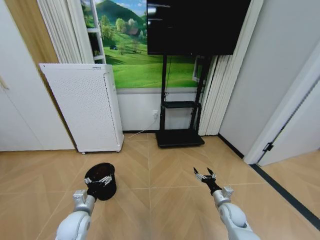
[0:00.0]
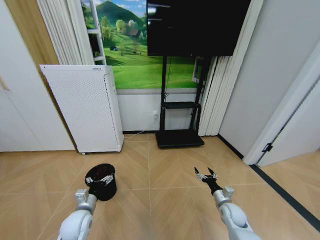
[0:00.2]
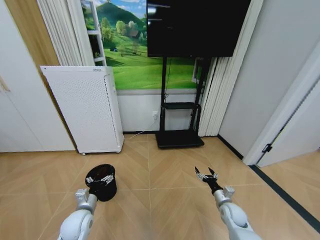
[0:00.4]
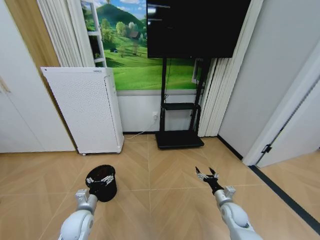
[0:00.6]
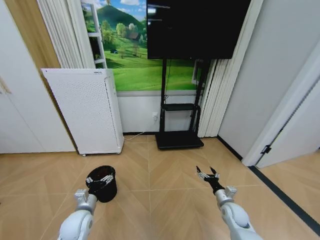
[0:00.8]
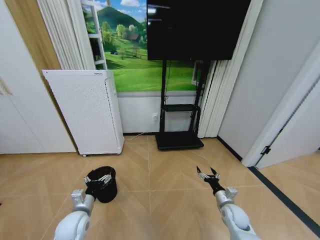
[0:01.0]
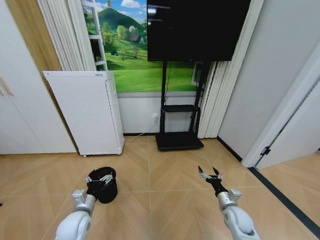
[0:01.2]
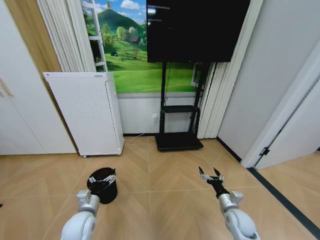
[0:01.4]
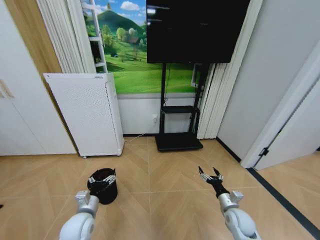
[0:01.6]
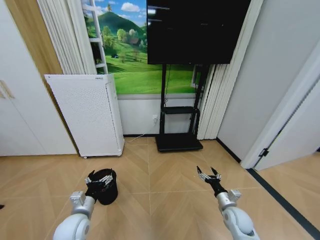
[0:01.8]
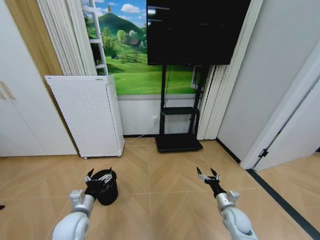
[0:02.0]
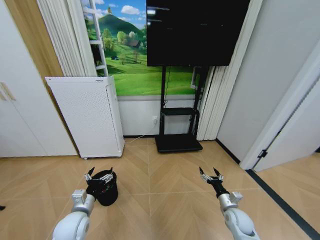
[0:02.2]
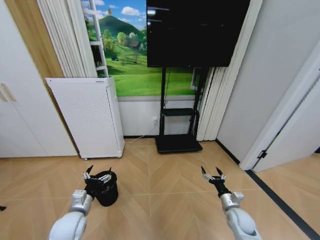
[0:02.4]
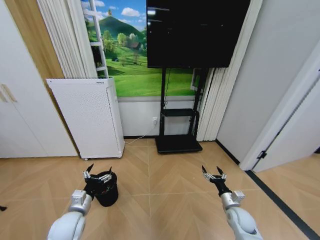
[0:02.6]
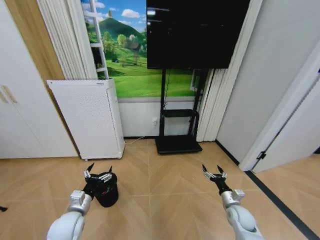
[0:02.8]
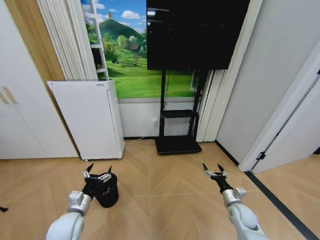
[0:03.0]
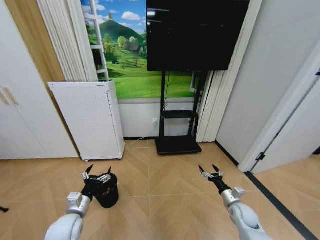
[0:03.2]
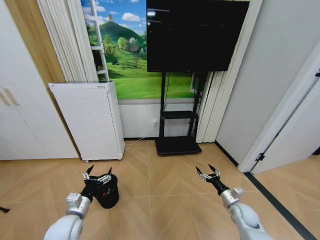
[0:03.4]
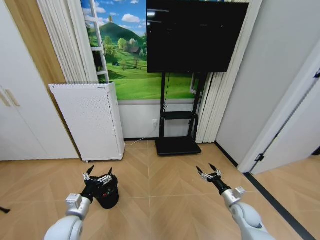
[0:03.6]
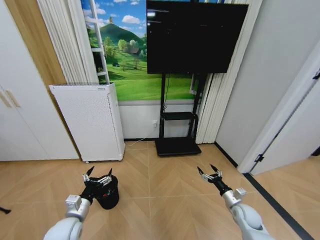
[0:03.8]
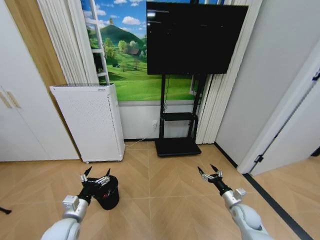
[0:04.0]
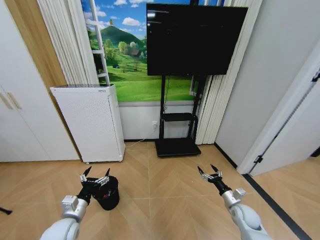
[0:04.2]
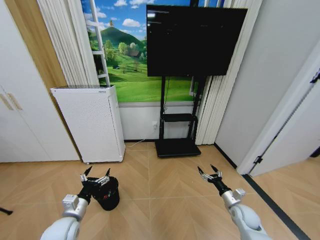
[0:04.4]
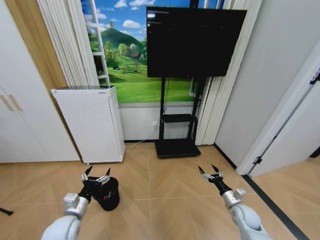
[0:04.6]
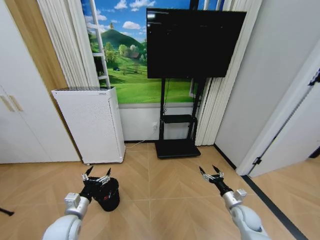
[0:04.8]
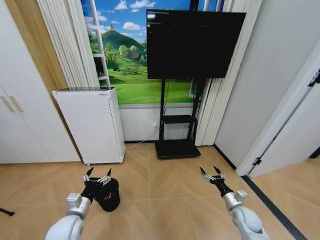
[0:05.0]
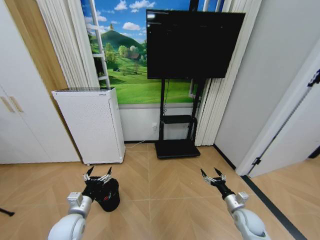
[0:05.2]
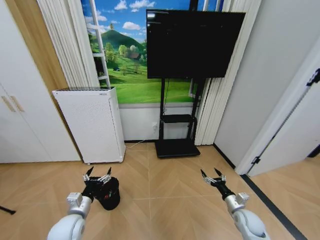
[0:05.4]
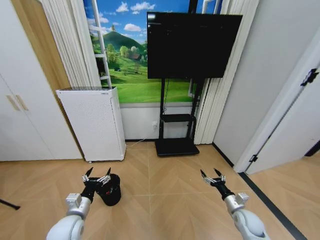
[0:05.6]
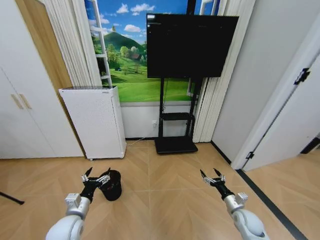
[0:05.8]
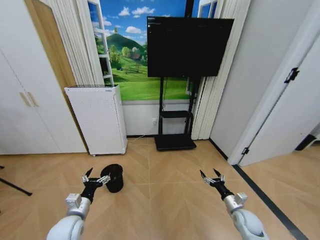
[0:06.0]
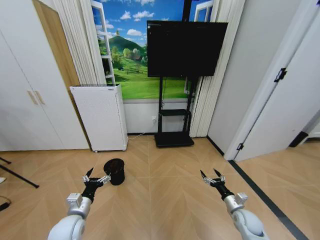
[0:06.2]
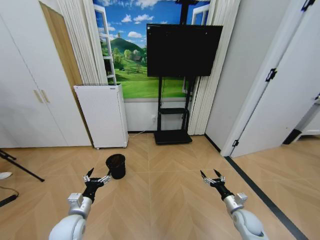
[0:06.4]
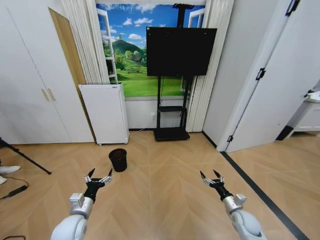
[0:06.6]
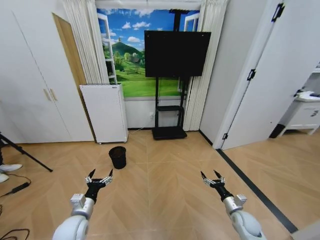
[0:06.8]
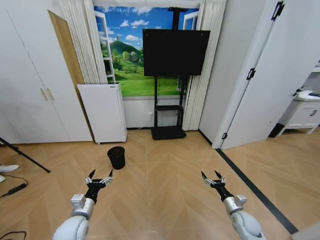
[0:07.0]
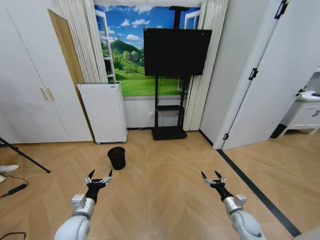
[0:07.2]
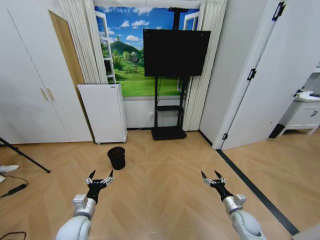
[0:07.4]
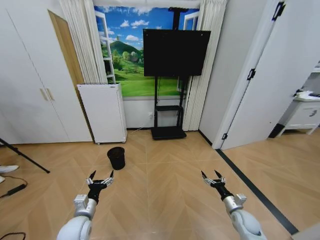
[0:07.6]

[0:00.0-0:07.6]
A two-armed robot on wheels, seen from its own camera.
Task of the whole recording: Pick up the trash bin and place the garbage on the floor into it.
0:00.0 to 0:01.6: The right gripper changes place by some 5 cm.
0:01.6 to 0:03.0: The grippers move only a little.
0:03.0 to 0:04.6: The grippers make only small movements.

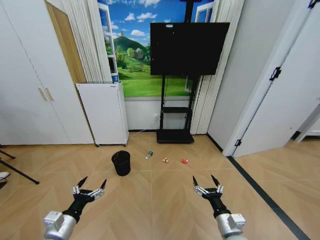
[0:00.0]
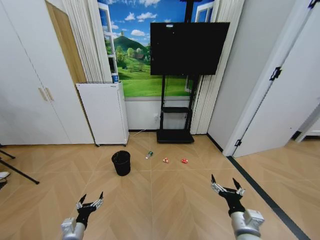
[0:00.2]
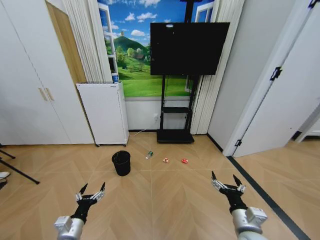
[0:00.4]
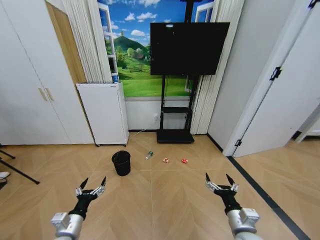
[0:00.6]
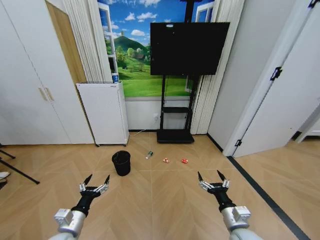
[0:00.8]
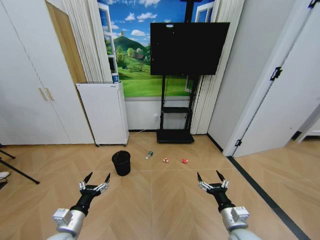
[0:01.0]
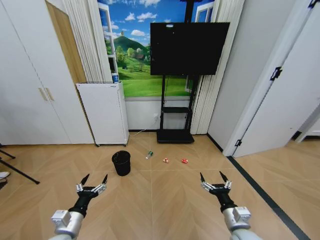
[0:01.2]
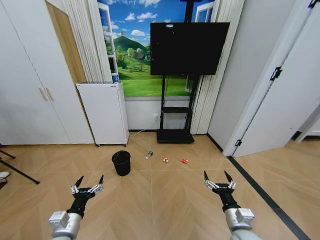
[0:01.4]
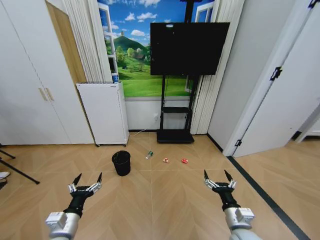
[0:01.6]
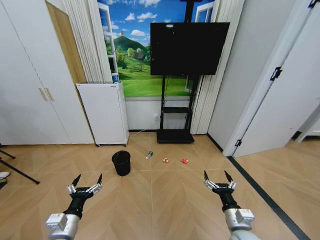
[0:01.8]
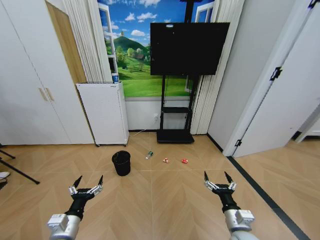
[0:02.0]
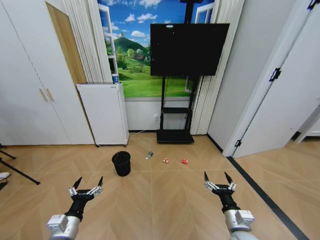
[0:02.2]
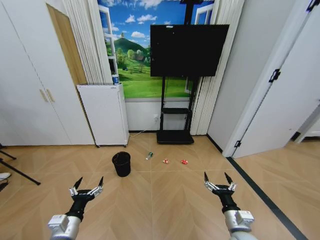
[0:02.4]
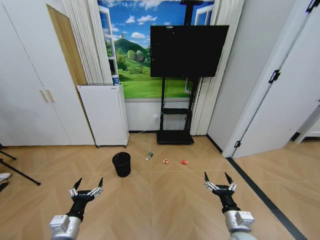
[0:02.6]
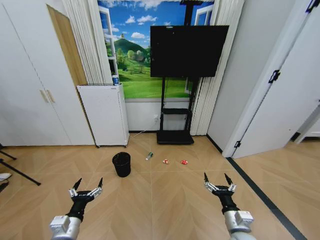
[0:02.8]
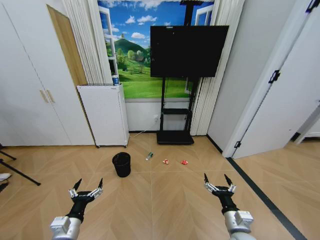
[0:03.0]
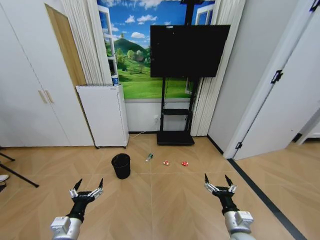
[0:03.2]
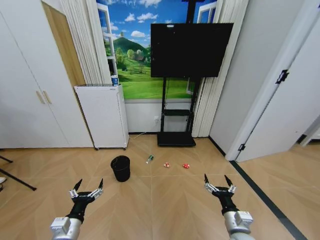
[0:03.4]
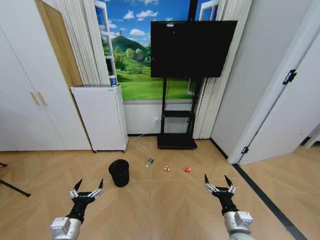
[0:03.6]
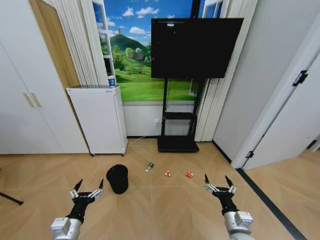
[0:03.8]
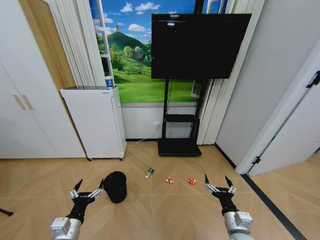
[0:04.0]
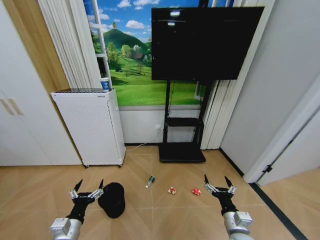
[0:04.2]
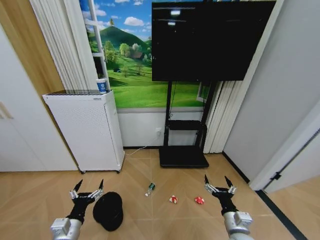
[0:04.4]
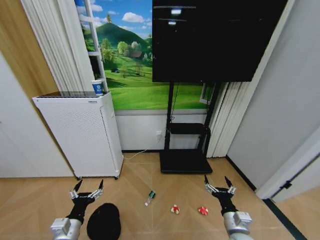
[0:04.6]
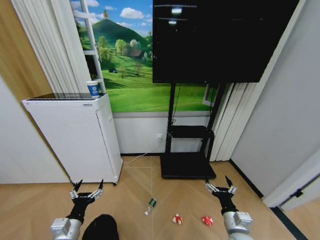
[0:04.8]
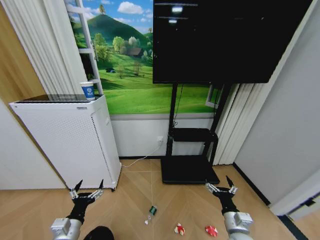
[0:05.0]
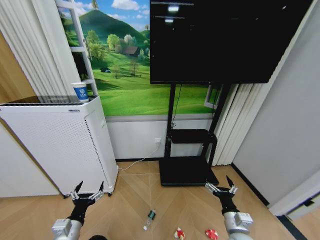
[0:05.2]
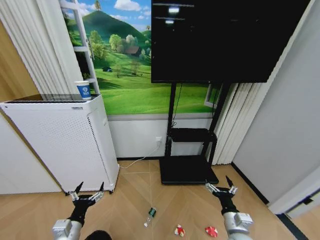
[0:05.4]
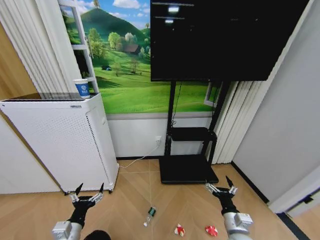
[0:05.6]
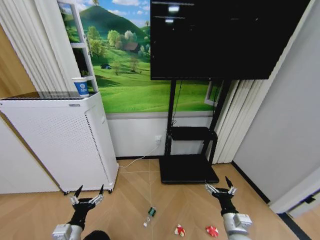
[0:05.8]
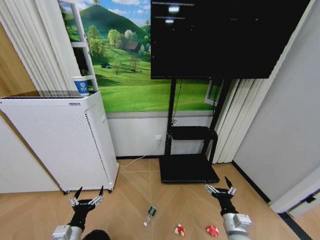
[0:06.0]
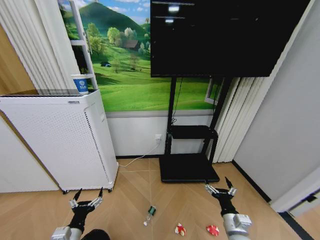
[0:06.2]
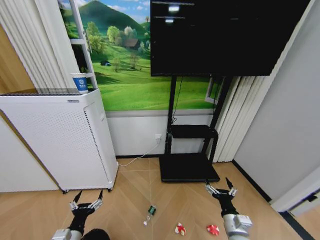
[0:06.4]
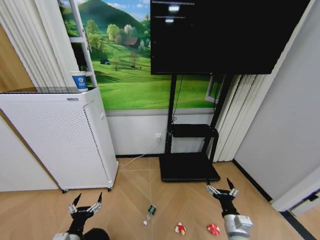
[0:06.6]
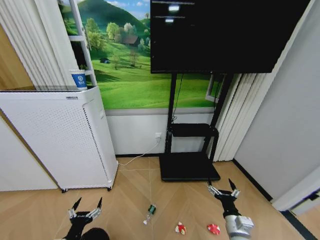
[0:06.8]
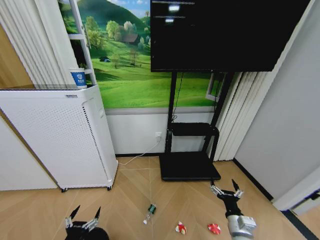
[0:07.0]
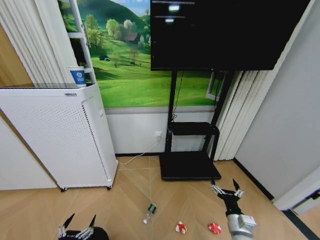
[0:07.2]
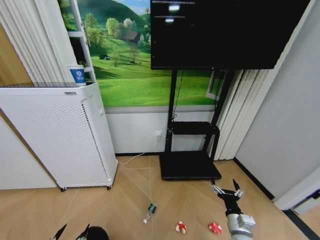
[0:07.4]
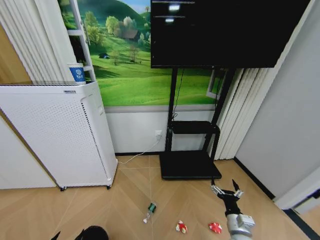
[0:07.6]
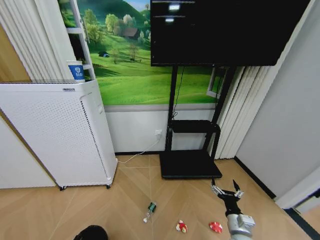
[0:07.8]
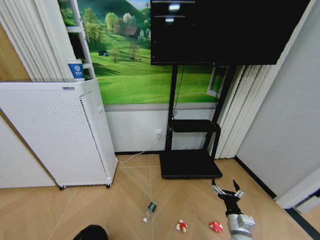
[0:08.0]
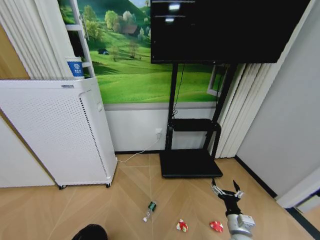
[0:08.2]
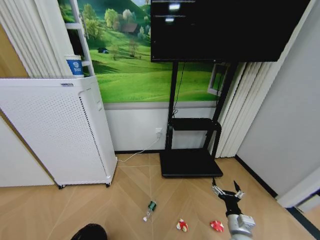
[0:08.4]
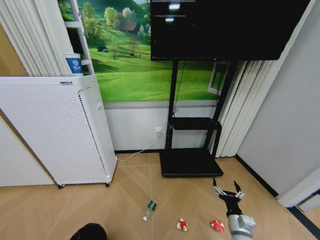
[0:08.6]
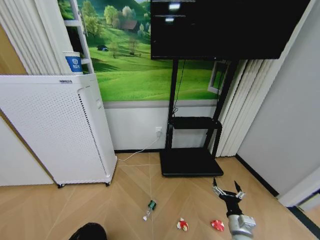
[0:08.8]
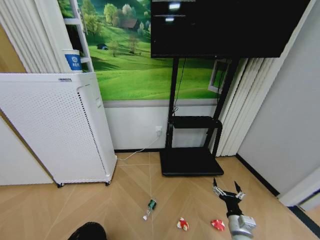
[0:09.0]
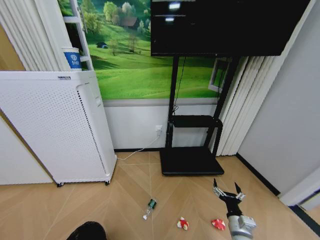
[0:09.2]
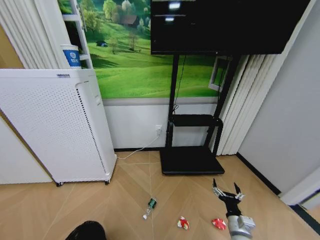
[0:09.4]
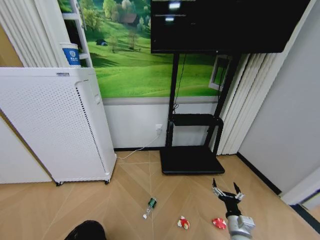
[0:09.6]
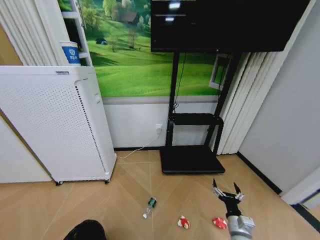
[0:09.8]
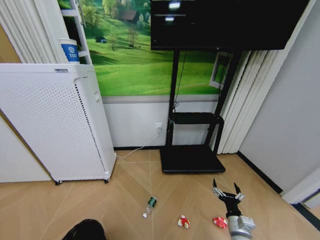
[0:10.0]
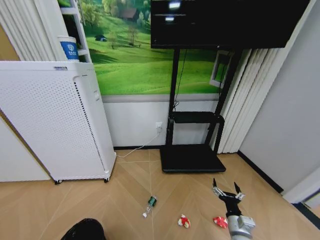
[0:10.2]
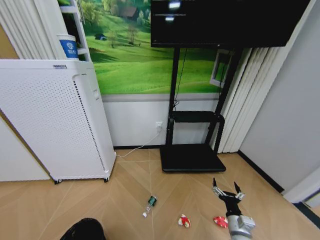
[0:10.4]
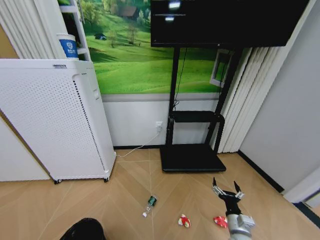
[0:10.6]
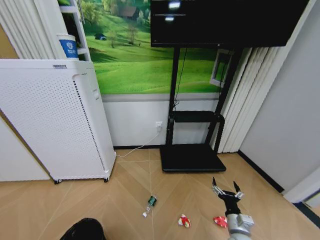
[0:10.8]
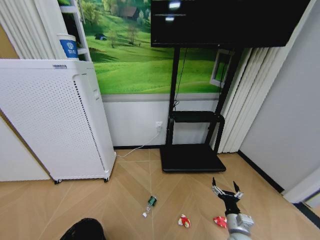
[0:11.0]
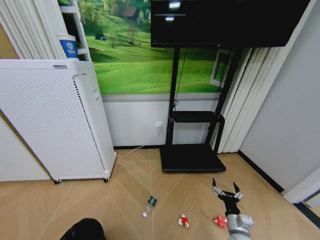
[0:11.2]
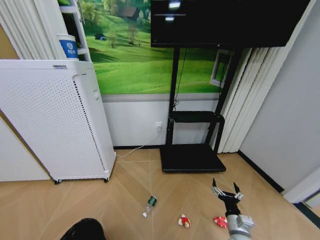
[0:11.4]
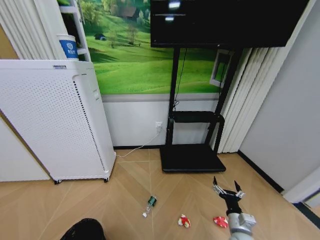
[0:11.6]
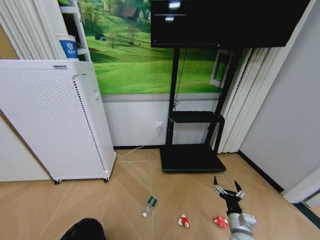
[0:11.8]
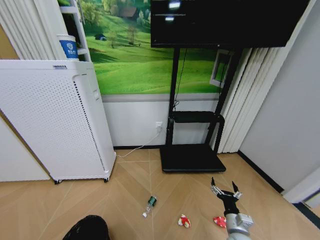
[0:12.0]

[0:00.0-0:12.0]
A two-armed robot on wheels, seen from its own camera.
Task of the whole recording: Pick up the trash bin and place the garbage on the floor into it.
0:01.6 to 0:03.0: There are only small adjustments of the grippers.
0:06.0 to 0:07.6: The left gripper is displaced backward and to the left by about 15 cm.
0:09.0 to 0:10.4: There are only small adjustments of the grippers.

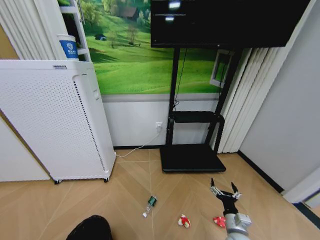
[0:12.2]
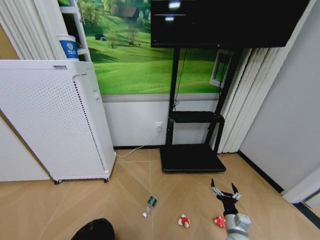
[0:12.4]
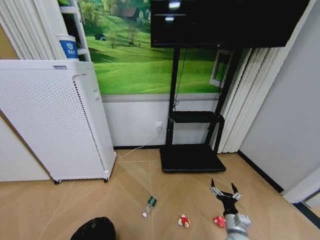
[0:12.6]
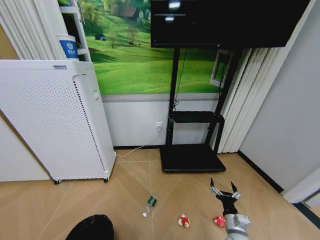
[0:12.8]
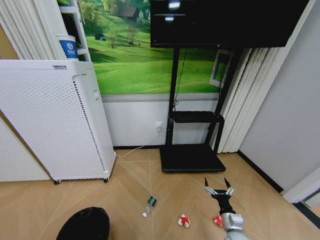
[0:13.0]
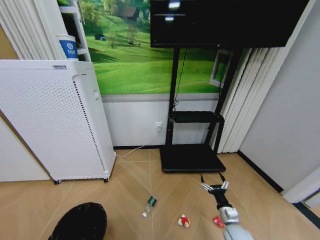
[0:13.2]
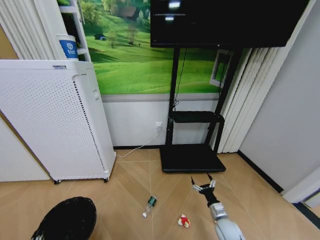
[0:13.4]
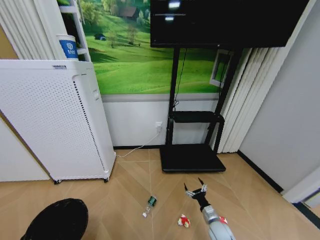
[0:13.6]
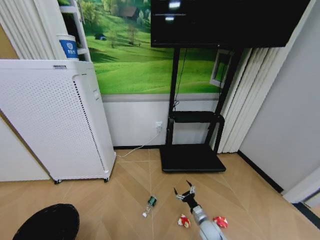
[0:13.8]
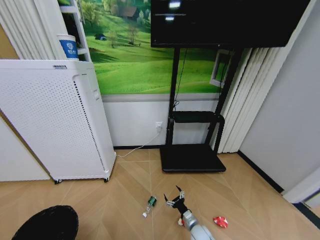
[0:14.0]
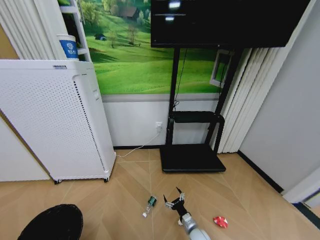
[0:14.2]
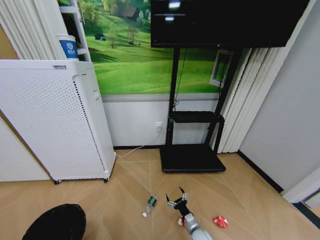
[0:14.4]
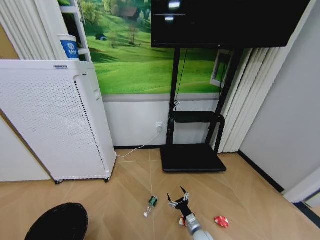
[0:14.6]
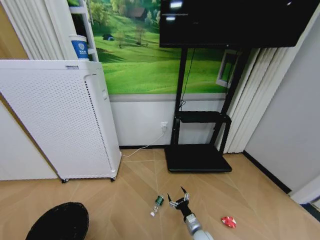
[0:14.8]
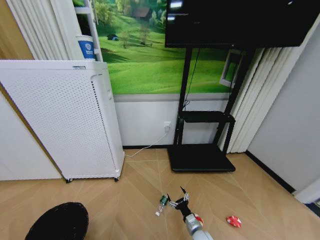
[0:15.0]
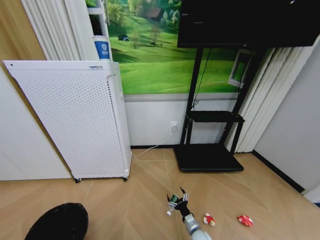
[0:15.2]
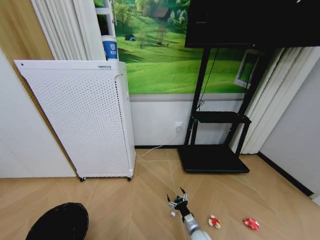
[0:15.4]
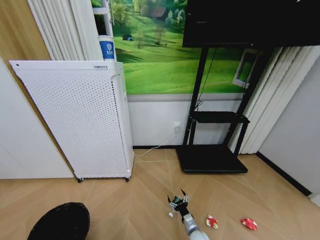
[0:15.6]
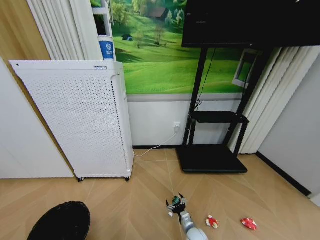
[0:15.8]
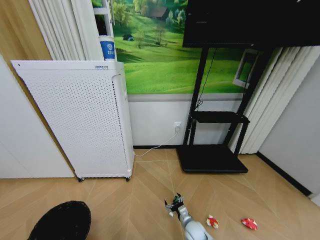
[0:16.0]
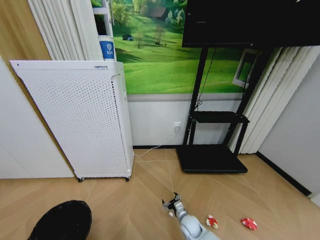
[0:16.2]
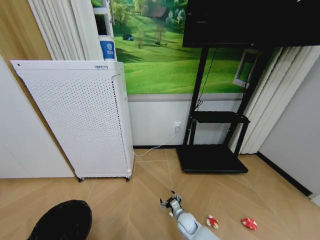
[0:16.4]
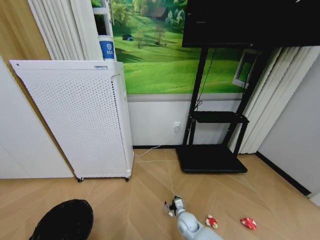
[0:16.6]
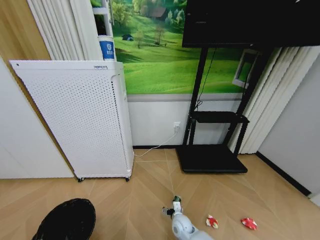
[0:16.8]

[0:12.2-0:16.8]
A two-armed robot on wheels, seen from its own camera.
Task of the whole recording: Pick up the trash bin and place the garbage on the floor into it.
0:12.2 to 0:13.8: The right gripper is displaced downward, forward and to the left by about 15 cm; the left gripper moves to the left, about 10 cm.
0:13.8 to 0:15.2: The right gripper moves approximately 5 cm.
0:15.2 to 0:16.8: The right gripper moves to the left and forward, about 10 cm.
